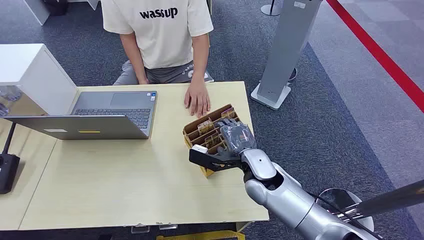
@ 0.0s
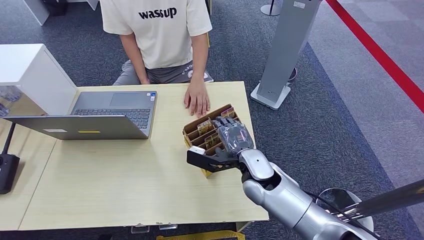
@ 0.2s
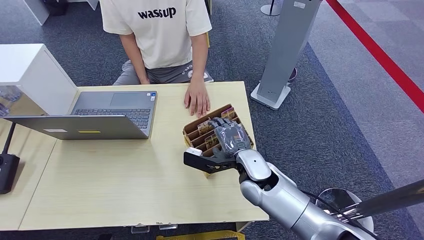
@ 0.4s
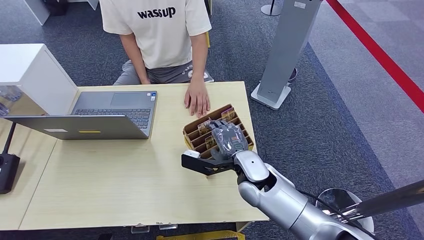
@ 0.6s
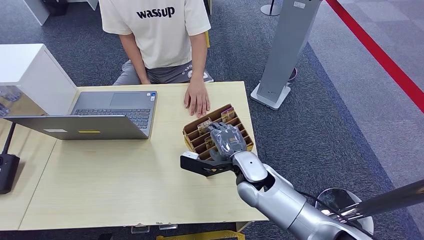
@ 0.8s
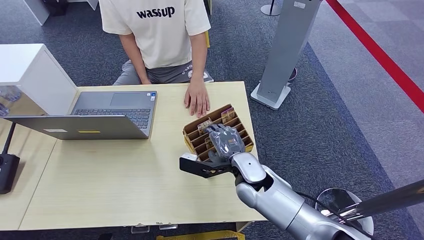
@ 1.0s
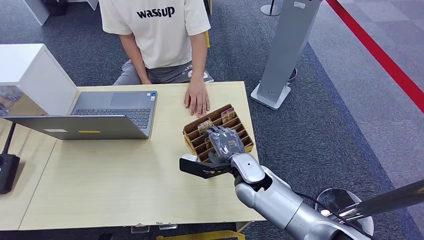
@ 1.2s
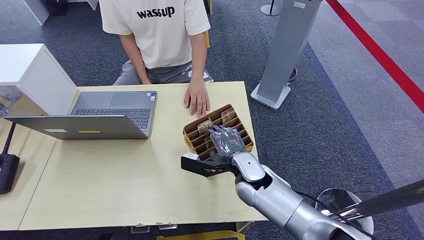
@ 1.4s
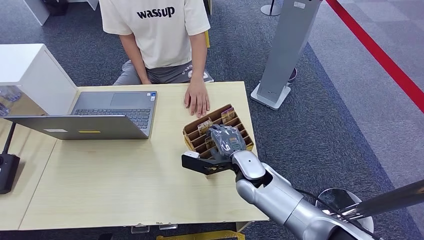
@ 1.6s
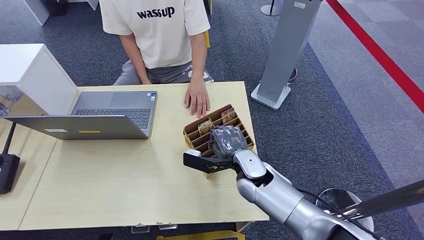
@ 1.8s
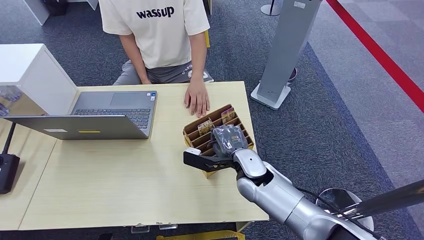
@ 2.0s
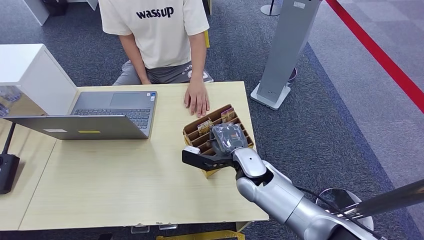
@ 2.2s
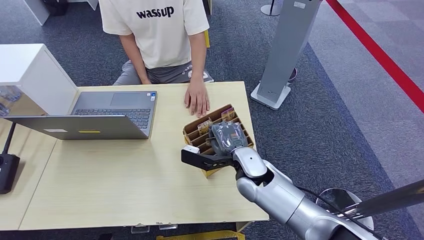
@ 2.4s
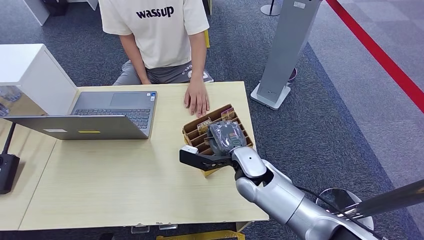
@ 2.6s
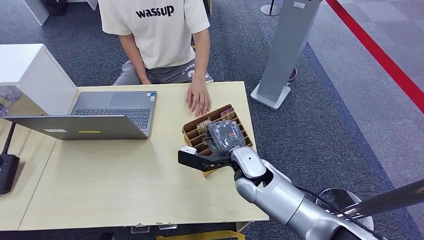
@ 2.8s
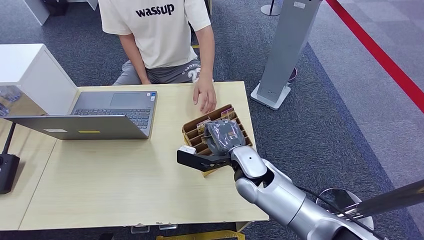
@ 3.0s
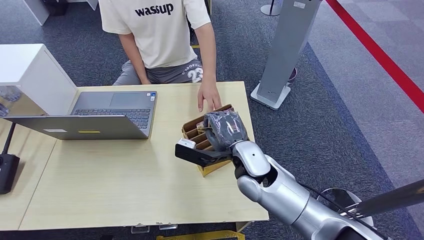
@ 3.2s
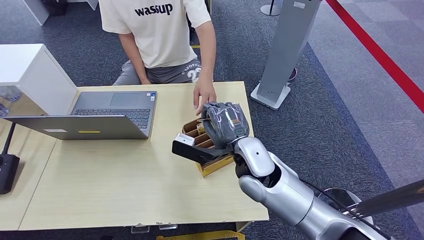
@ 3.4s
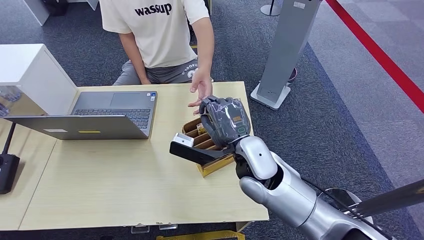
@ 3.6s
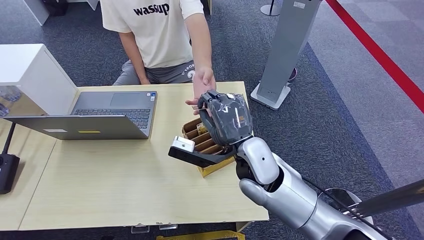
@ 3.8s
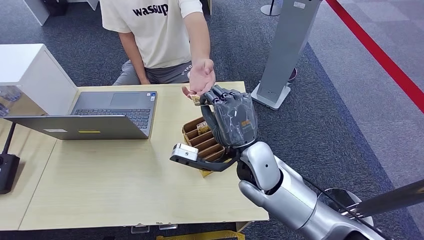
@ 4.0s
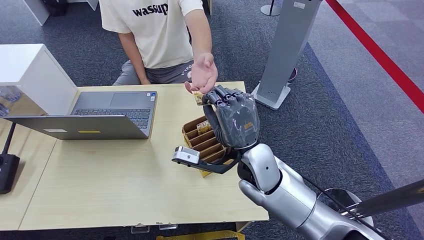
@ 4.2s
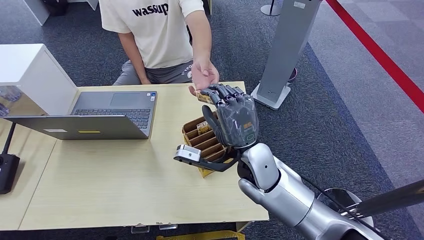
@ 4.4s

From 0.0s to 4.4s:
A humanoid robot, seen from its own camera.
Step, from 0.0s to 2.4s: Pick up the key card from the card box.
Step, from 3.2s to 4.4s: Hand the key card to the target.
From 1.4s to 3.0s: The hands stay close to where they were, moving slightly.
From 3.0s to 4.4s: The right hand is displaced upward by roughly 5 cm.
